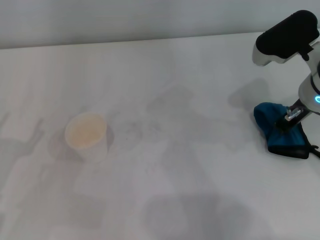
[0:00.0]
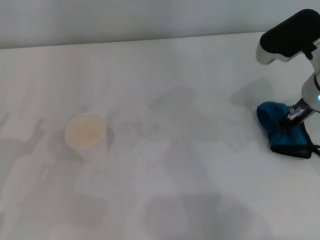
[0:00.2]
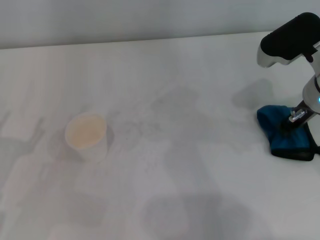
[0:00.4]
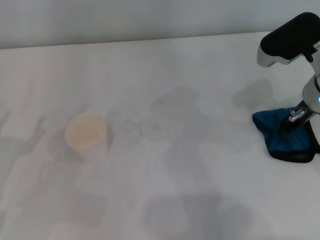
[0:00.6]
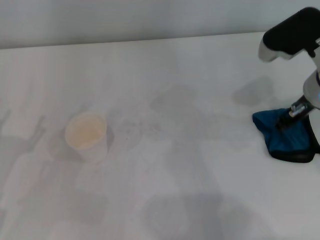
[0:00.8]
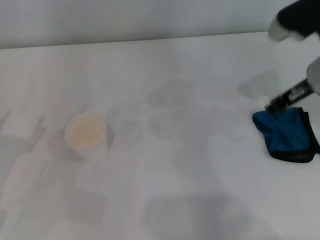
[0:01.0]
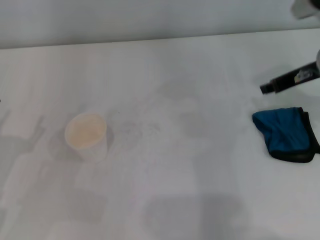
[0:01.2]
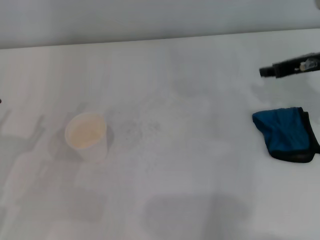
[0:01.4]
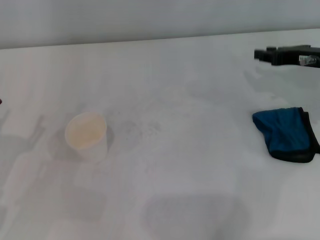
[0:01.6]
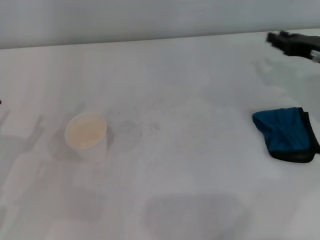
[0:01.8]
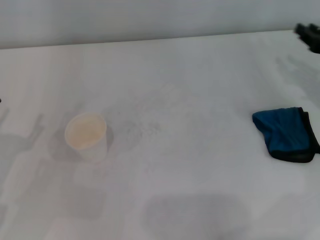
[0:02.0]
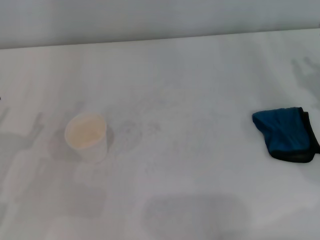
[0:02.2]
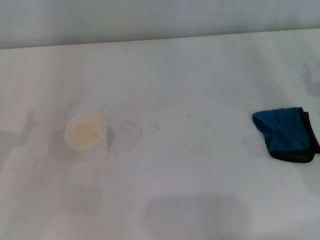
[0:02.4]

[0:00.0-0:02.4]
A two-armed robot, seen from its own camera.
Step, 0:00.2 to 0:00.6: Place the rag on the table with the right gripper.
0:00.0 to 0:01.2: The right gripper heads to the right, covering roughly 5 cm, and opens.
0:01.2 to 0:02.4: The right gripper goes approximately 15 cm downward, backward and to the right.

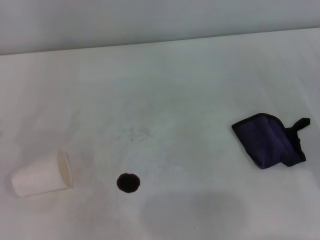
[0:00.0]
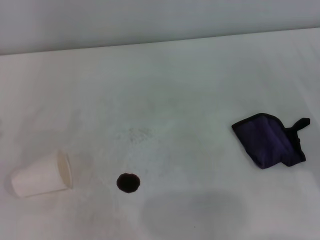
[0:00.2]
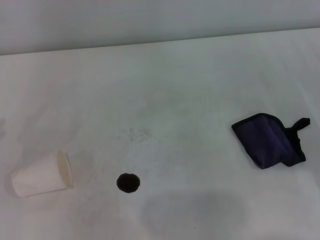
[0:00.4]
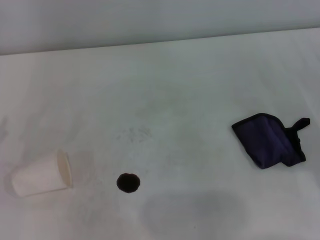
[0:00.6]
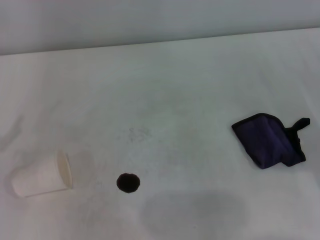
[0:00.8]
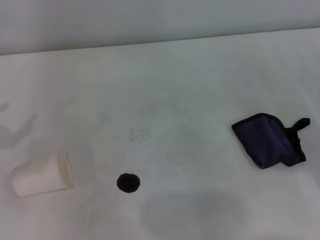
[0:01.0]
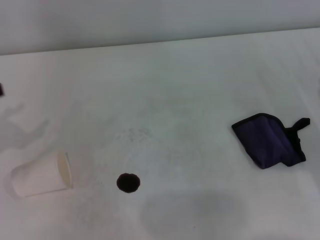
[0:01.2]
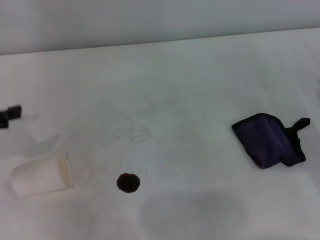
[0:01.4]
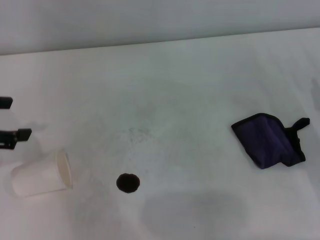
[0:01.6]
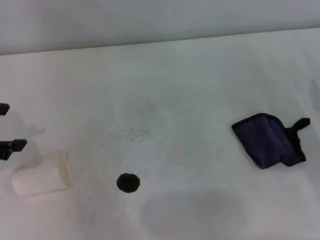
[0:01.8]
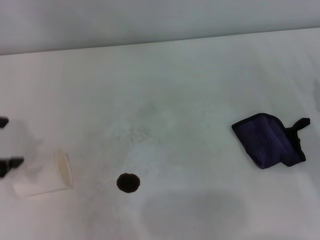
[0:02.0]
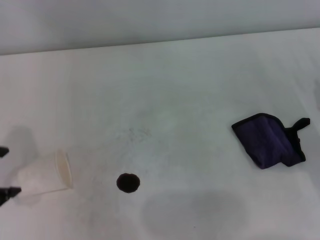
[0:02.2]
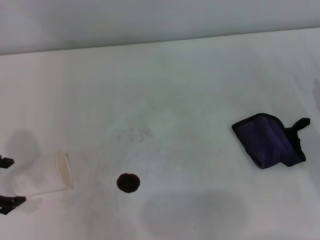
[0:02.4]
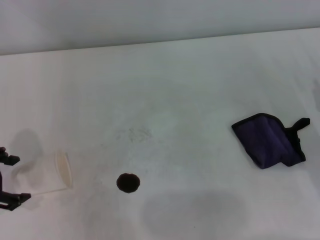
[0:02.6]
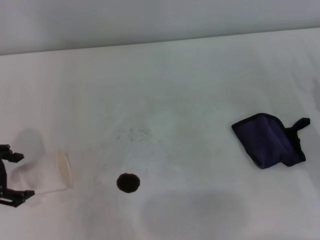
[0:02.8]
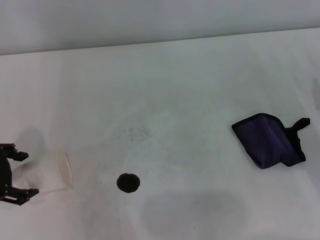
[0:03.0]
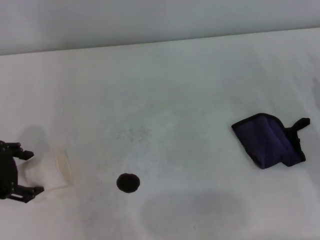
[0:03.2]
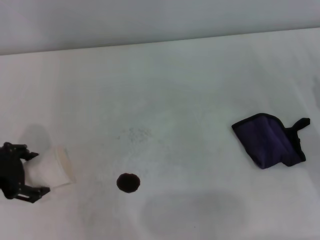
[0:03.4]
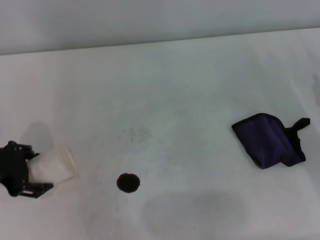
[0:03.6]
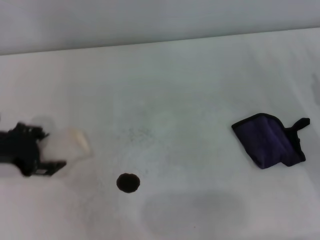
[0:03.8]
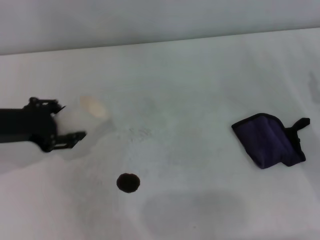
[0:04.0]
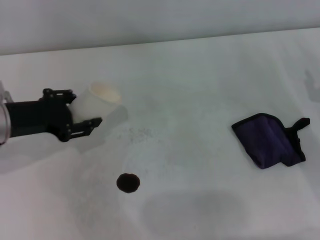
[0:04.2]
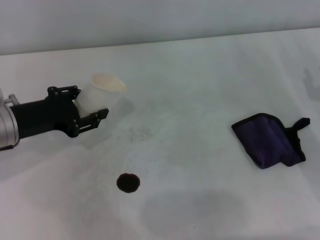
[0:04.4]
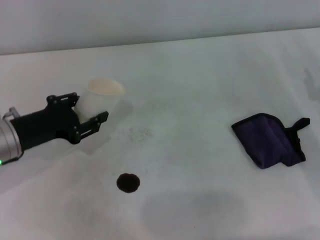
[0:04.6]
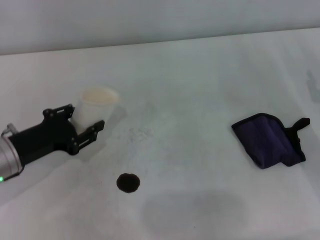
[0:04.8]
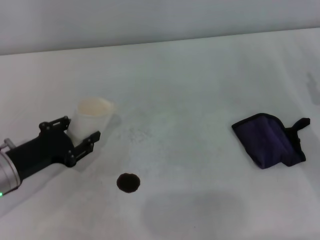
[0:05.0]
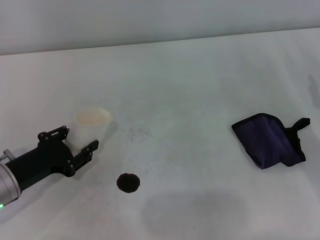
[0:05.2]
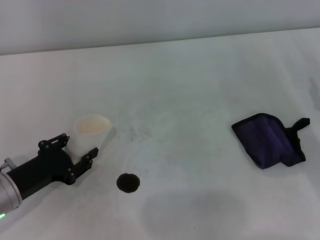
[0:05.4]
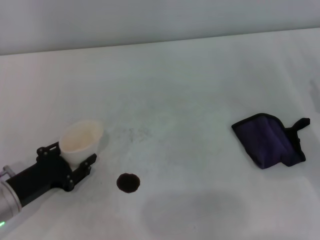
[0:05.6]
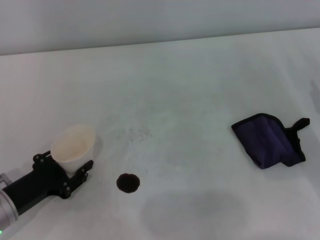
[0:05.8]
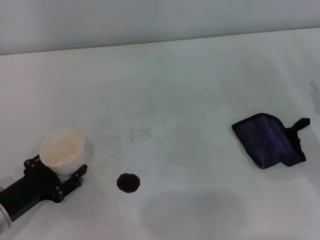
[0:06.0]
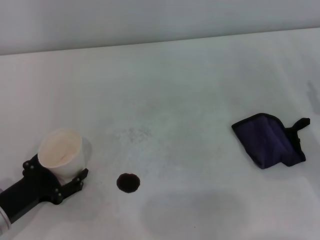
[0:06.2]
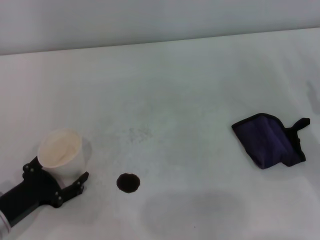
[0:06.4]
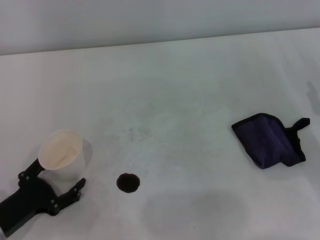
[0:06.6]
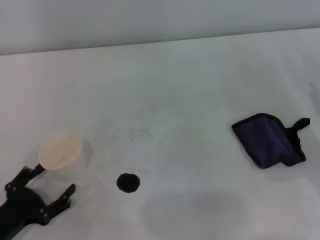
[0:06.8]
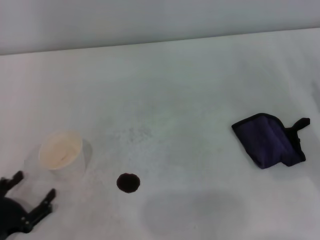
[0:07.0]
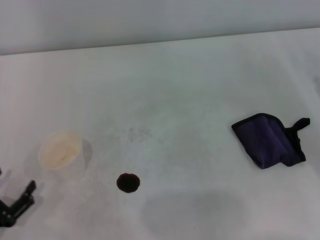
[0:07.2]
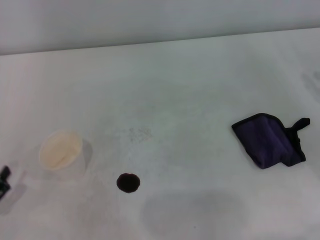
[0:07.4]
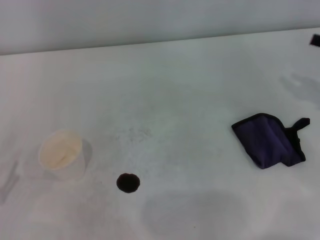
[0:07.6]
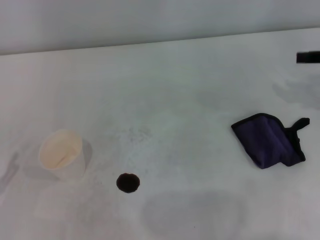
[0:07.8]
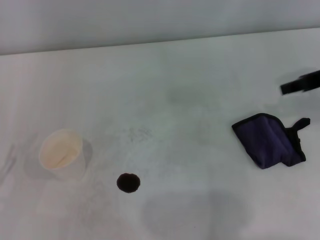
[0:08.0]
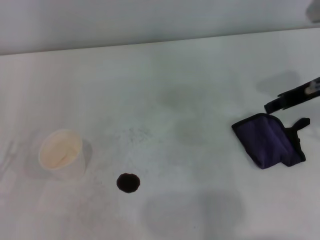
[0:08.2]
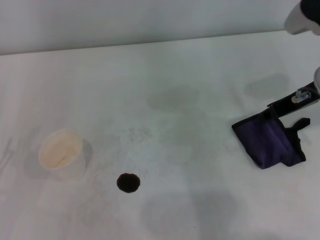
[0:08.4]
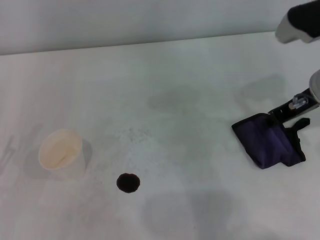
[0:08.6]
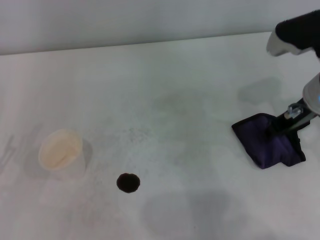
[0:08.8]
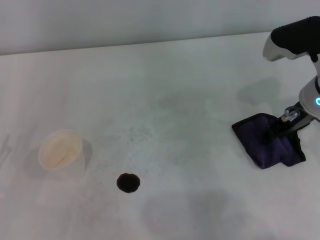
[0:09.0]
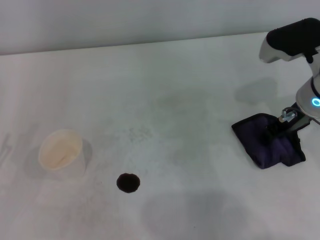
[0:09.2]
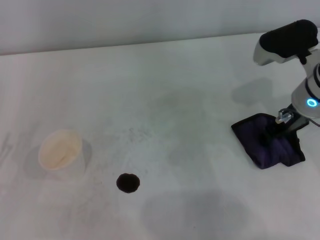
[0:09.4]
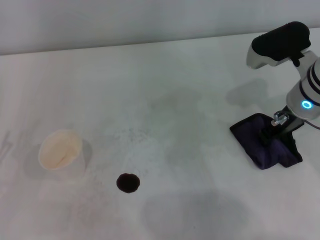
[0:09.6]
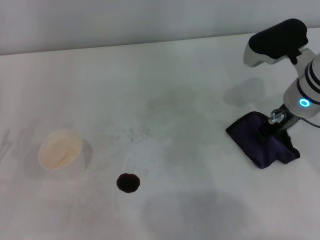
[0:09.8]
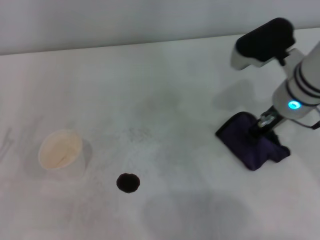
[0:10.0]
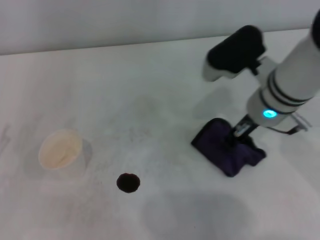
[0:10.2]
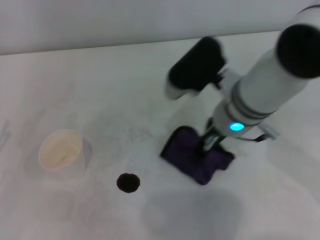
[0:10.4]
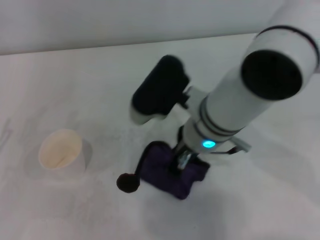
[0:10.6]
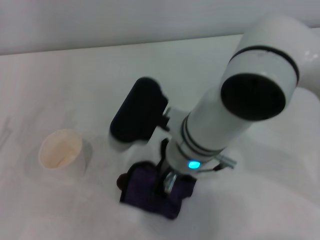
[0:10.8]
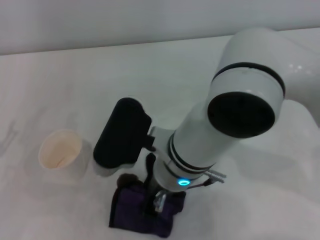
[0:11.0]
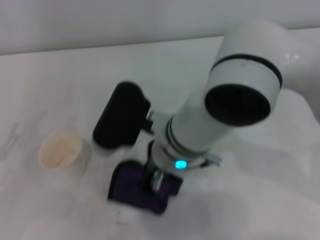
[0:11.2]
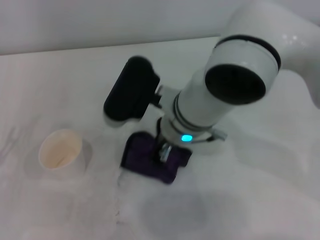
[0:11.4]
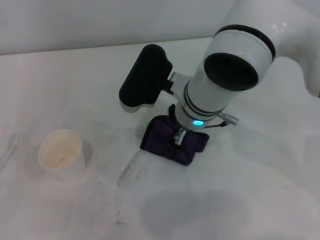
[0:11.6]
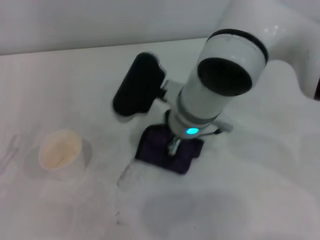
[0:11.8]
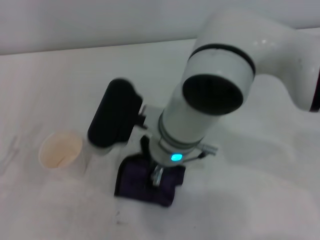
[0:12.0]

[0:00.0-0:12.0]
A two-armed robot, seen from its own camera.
Step, 0:00.0 to 0:03.4: Grasp the paper cup with the left gripper.
Step, 0:03.6 to 0:06.2: Stand the paper cup upright with the left gripper.
Step, 0:06.4 to 0:09.6: Grasp the rag with the right gripper.
0:00.0 to 0:01.6: The left gripper travels upward, forward and to the right by approximately 15 cm.
0:01.6 to 0:03.0: The left gripper moves downward, some 5 cm.
0:03.0 to 0:04.4: The left gripper moves approximately 10 cm, and closes its fingers.
0:04.4 to 0:06.0: The left gripper heads downward and backward, covering roughly 15 cm.
0:06.0 to 0:07.6: The left gripper travels backward and to the left by approximately 10 cm, and opens up.
0:07.6 to 0:09.0: The right gripper travels to the left by approximately 15 cm.
0:09.0 to 0:10.4: The right gripper shifts about 15 cm to the left, and closes up.
0:10.4 to 0:12.0: The right gripper is displaced to the left by some 10 cm.

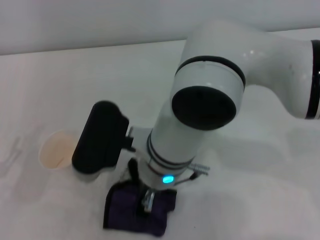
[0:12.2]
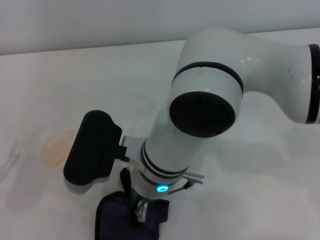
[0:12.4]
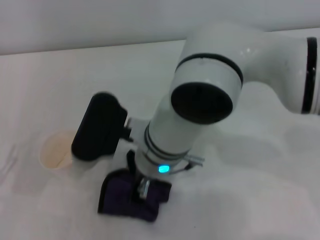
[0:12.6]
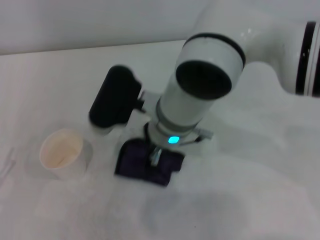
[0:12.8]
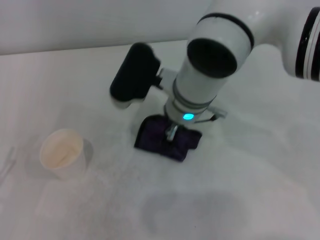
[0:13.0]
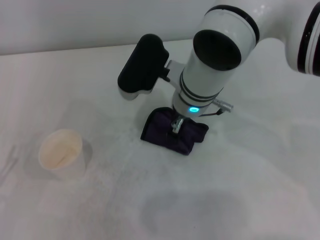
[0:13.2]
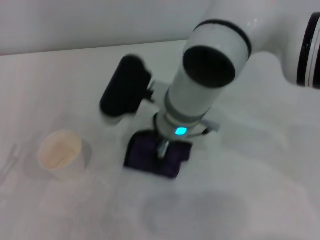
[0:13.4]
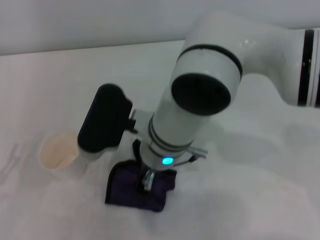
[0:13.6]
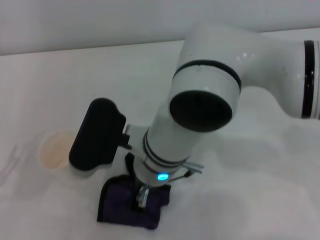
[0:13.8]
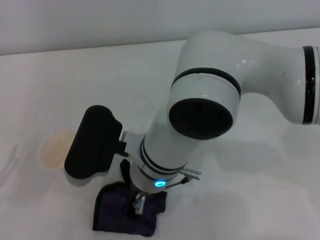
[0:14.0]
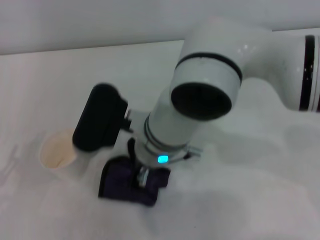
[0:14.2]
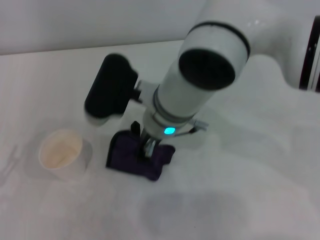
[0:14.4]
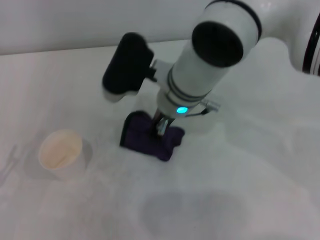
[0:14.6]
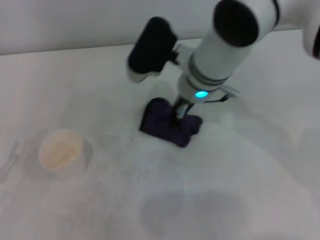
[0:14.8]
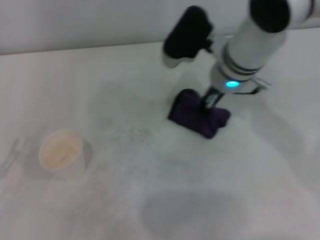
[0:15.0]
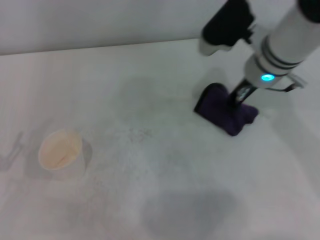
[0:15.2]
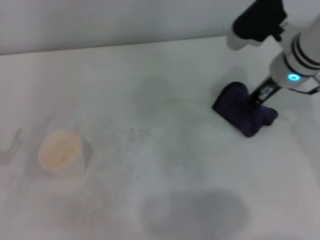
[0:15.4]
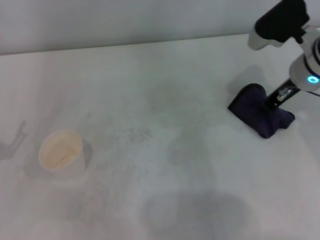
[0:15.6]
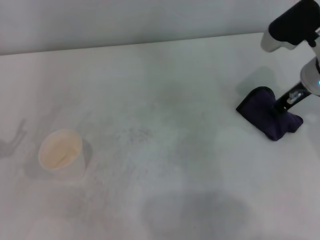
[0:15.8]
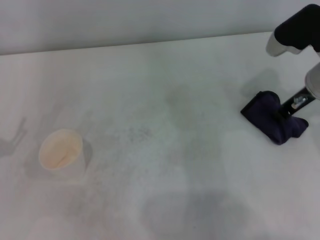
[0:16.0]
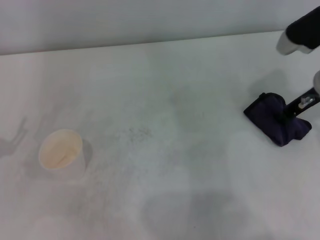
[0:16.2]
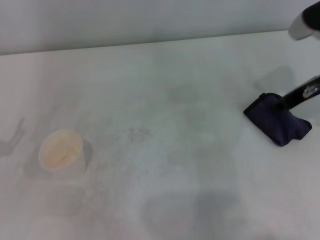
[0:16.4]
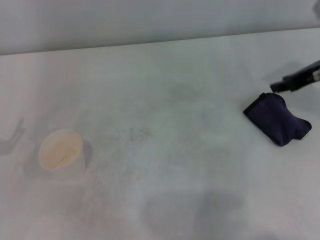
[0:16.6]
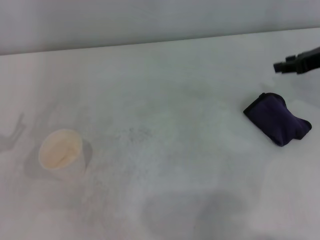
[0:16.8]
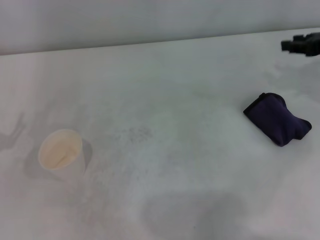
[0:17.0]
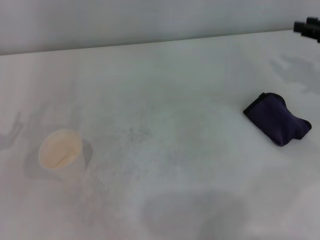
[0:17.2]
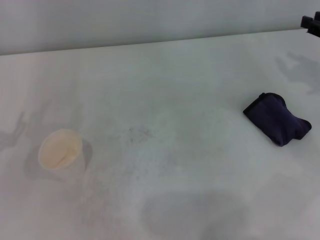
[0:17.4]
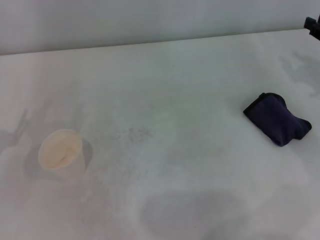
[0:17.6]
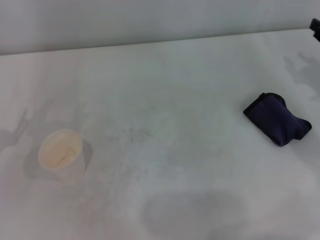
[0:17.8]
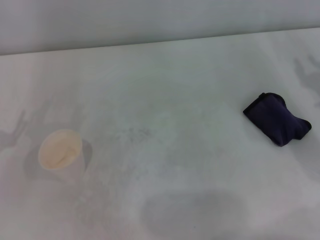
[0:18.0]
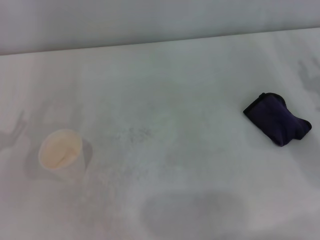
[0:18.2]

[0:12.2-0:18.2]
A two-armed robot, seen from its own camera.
Step, 0:12.2 to 0:15.2: Wipe the stains off the table with the right gripper.
Step, 0:15.6 to 0:16.0: Place the rag on the table with the right gripper.
0:12.2 to 0:13.8: The right gripper reaches roughly 10 cm forward, then returns.
0:13.8 to 0:15.2: The right gripper goes roughly 20 cm to the right and forward.
0:15.2 to 0:16.6: The right gripper is displaced to the right by about 15 cm, and opens its fingers.
0:16.6 to 0:18.2: The right gripper moves downward, backward and to the right, about 15 cm.

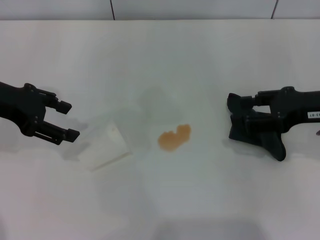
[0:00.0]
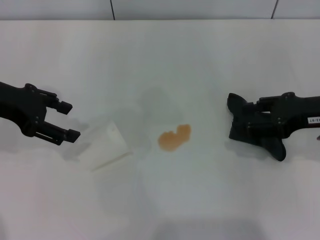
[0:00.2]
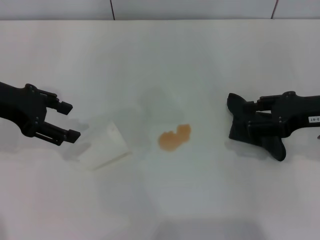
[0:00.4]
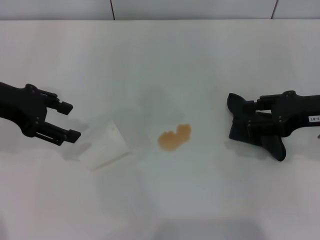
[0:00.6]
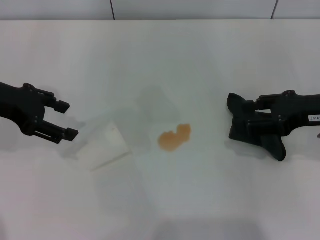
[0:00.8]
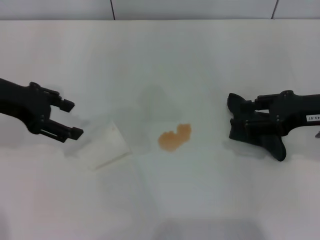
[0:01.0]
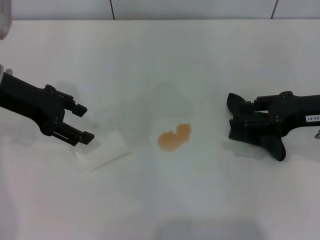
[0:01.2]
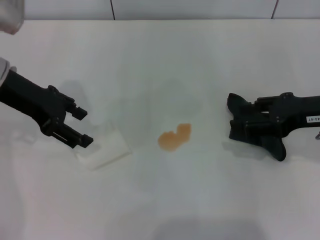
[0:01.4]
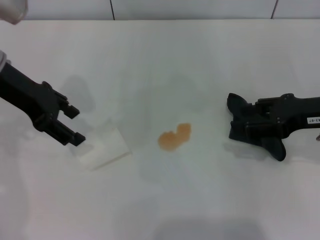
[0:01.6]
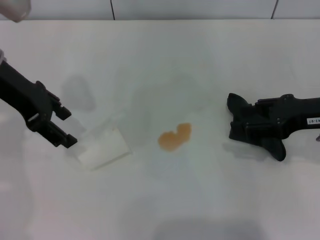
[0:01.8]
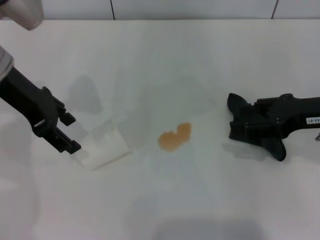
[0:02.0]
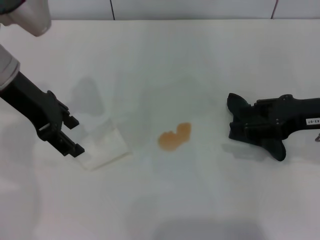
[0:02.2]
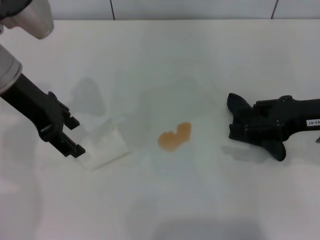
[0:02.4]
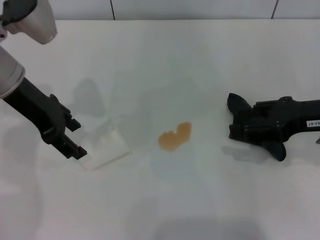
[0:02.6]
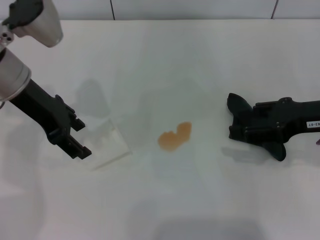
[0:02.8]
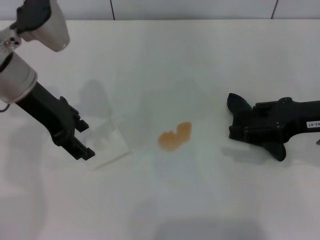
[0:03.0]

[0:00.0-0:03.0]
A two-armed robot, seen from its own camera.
0:00.0 to 0:01.6: The left gripper shifts by roughly 5 cm.
0:01.6 to 0:03.0: The grippers stay close to where they were, moving slightly.
